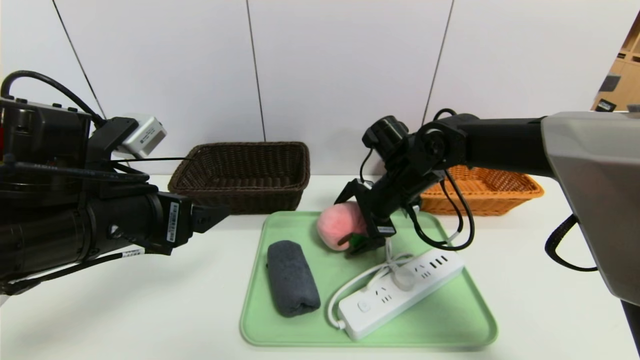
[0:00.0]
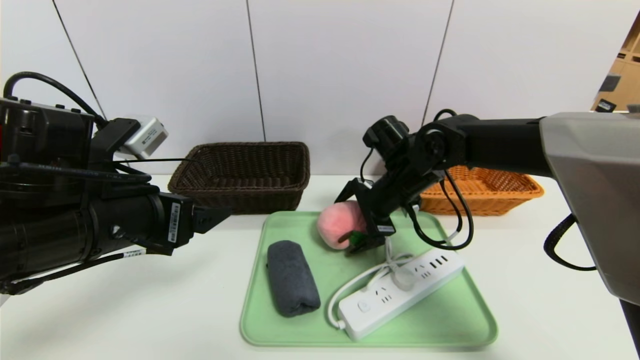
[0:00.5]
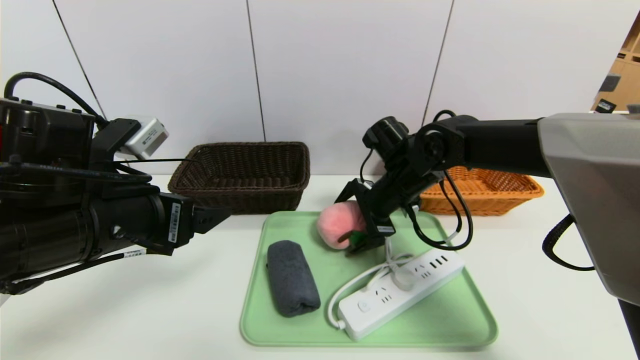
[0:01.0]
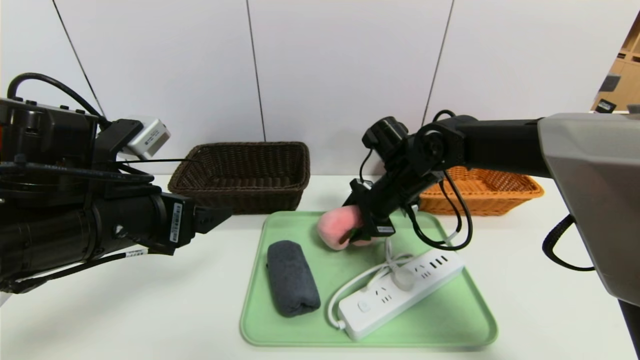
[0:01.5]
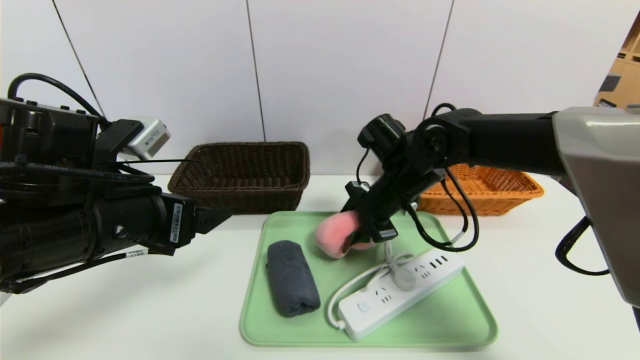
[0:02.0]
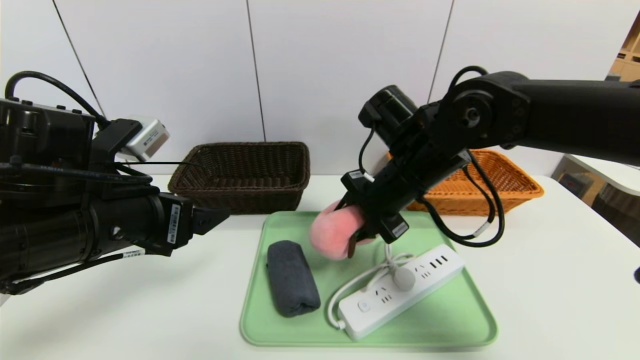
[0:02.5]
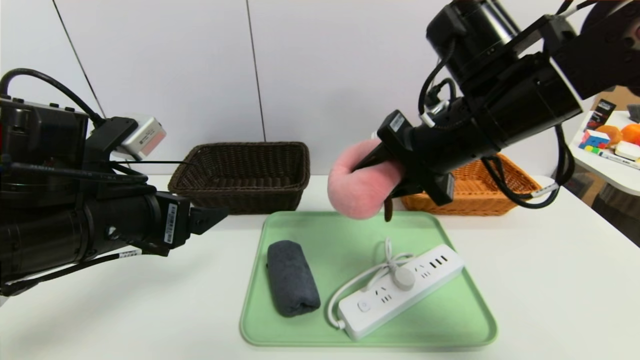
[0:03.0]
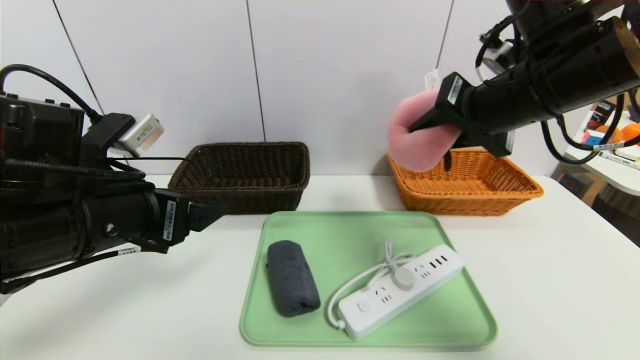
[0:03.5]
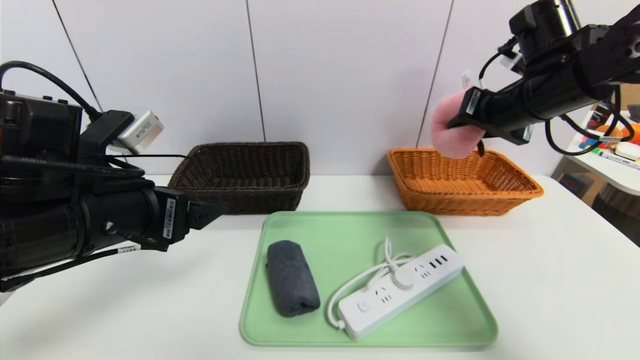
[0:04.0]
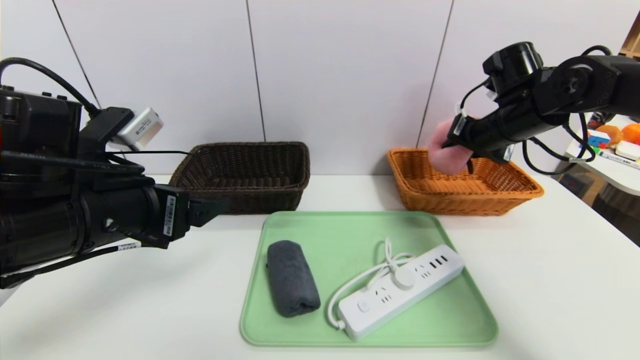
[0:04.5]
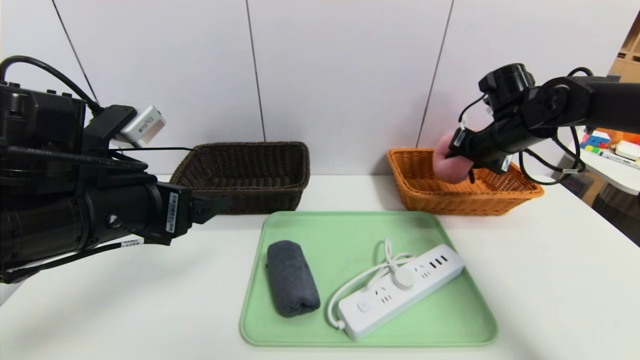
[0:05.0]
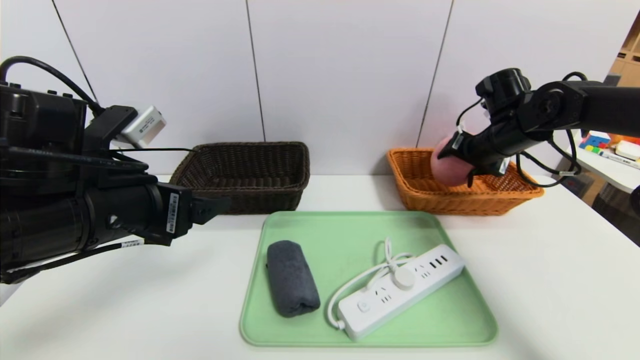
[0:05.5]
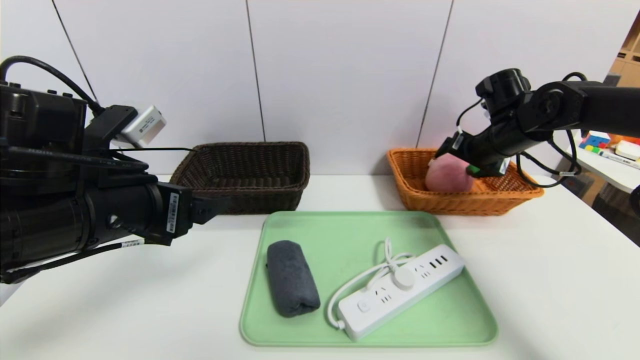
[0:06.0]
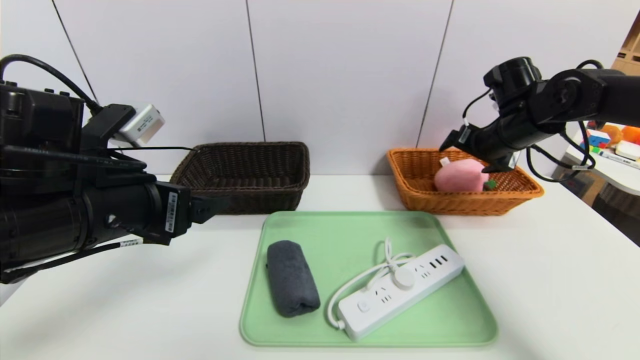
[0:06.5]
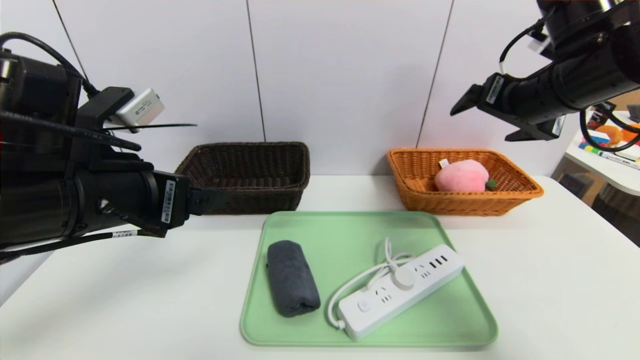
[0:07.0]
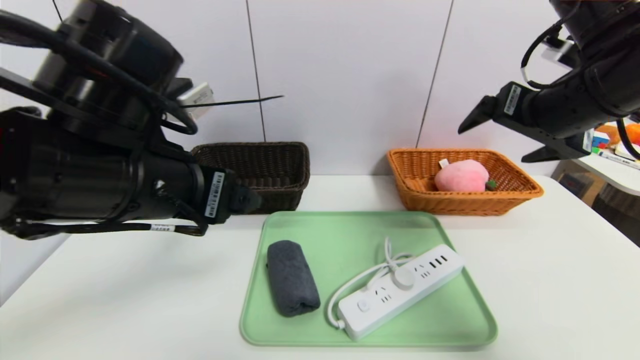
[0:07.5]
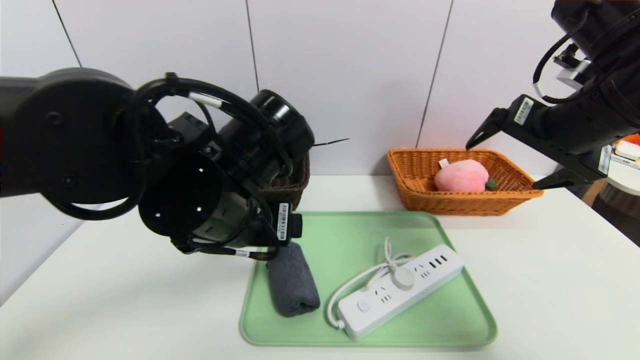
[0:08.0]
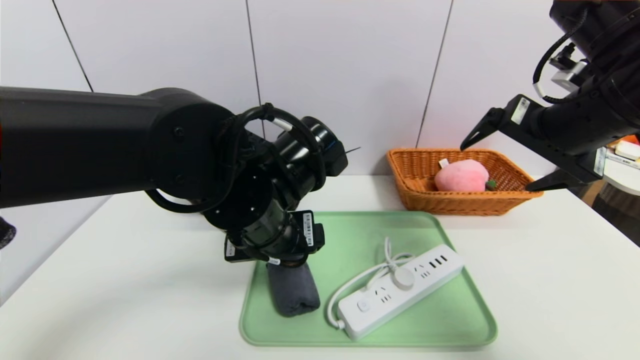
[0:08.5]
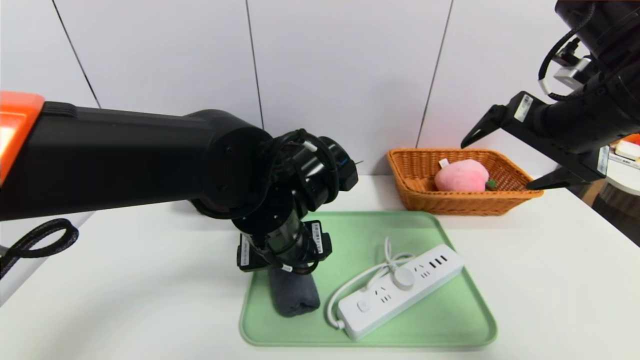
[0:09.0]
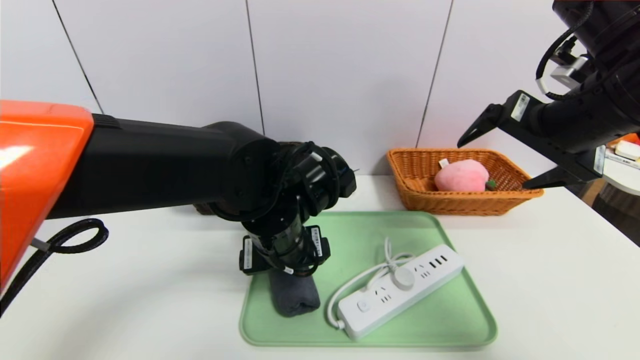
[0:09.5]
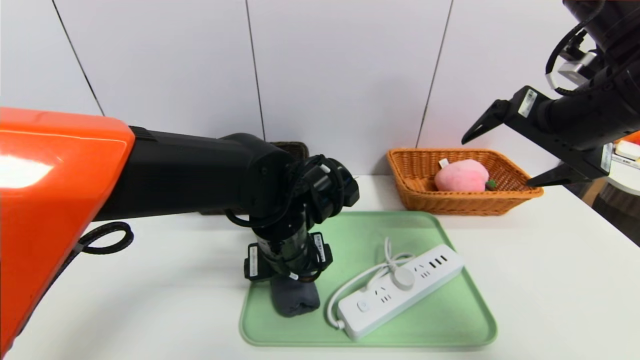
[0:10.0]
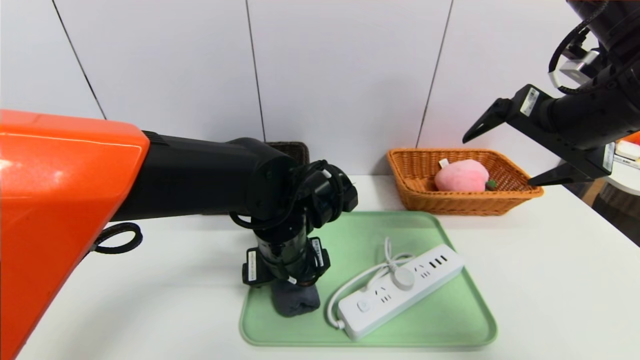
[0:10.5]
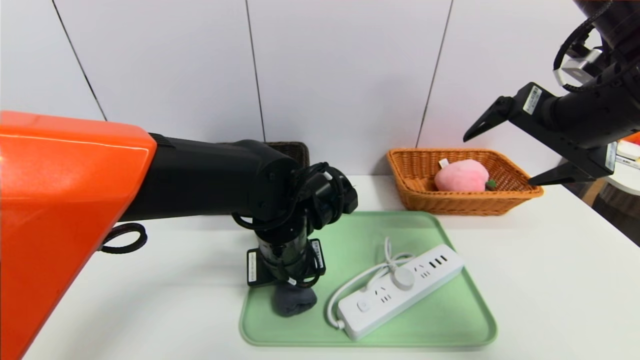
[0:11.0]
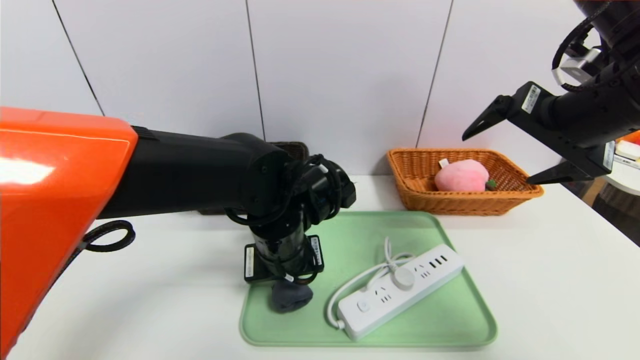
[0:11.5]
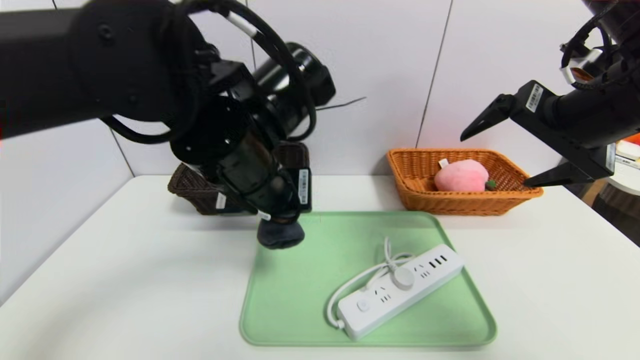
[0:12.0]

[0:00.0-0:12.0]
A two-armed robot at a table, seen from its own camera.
Task of the whole recording: place the food in the right basket with the right gripper, and place the non food items in the left basket with the left gripper.
Step, 0:00.0 to 0:06.5: Grasp the peach doll and put it in the right basket.
0:00.0 to 0:02.0: The right gripper closes up.
0:02.0 to 0:04.0: The right gripper is displaced to the right and upward by about 20 cm.
0:04.0 to 0:06.0: The right gripper travels downward and forward by approximately 10 cm, and opens.
0:06.0 to 0:08.0: The right gripper goes roughly 20 cm backward and upward. The left gripper shifts about 10 cm to the right.
0:08.0 to 0:10.0: The left gripper heads downward, covering approximately 10 cm.
0:10.0 to 0:12.0: The left gripper heads upward, covering about 10 cm, and closes.

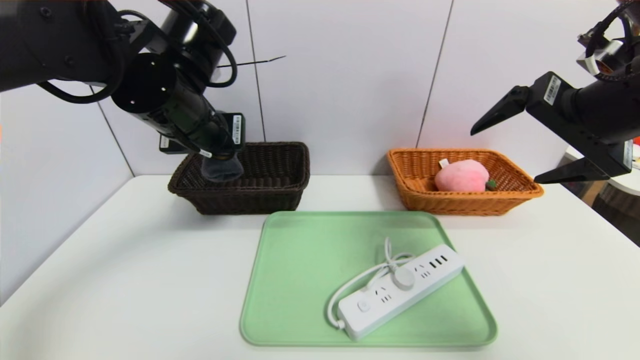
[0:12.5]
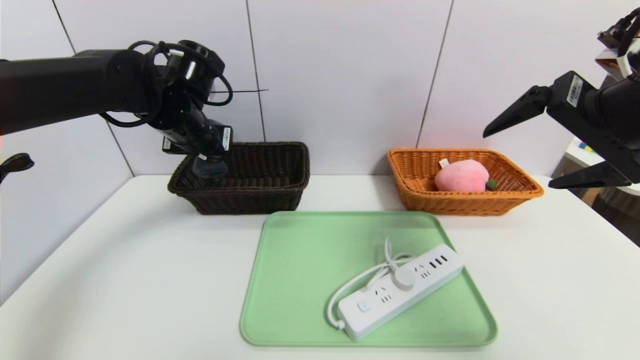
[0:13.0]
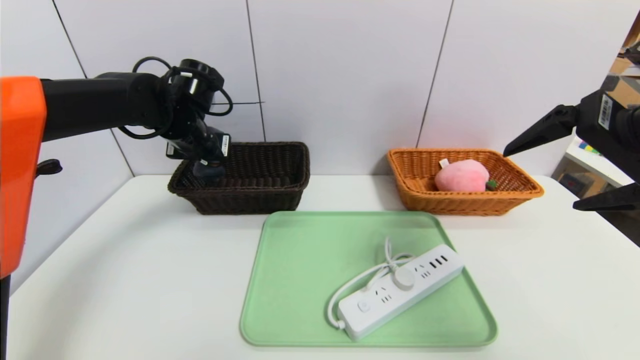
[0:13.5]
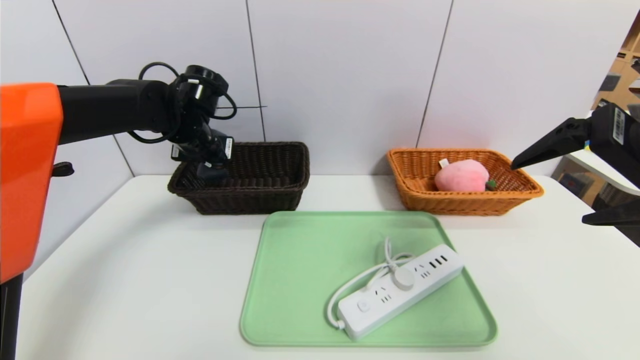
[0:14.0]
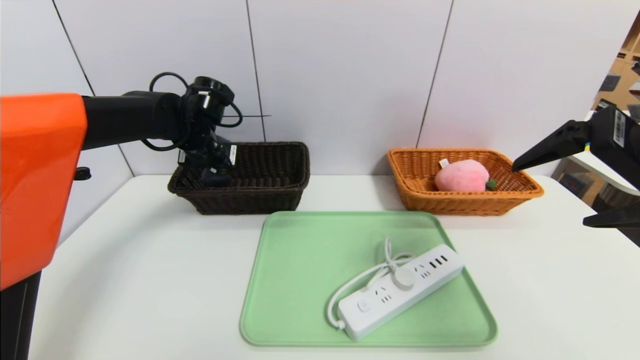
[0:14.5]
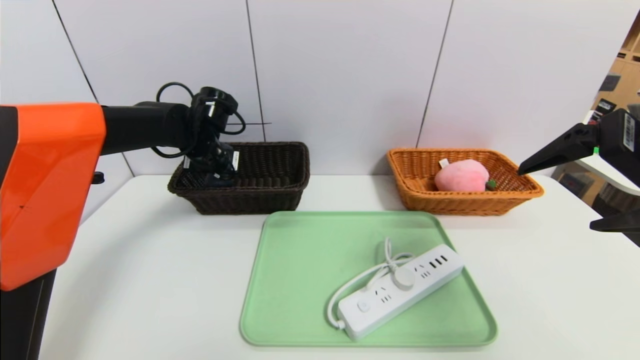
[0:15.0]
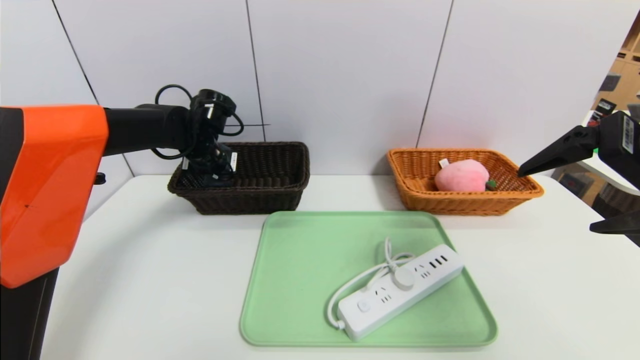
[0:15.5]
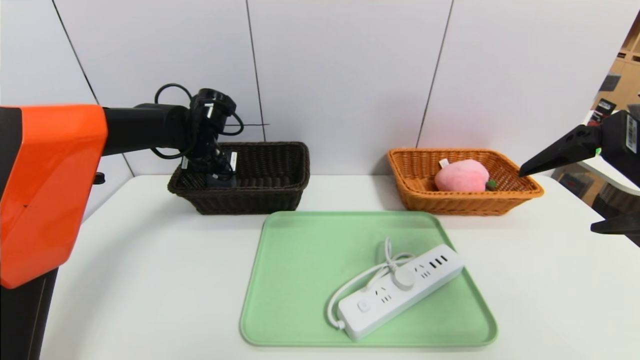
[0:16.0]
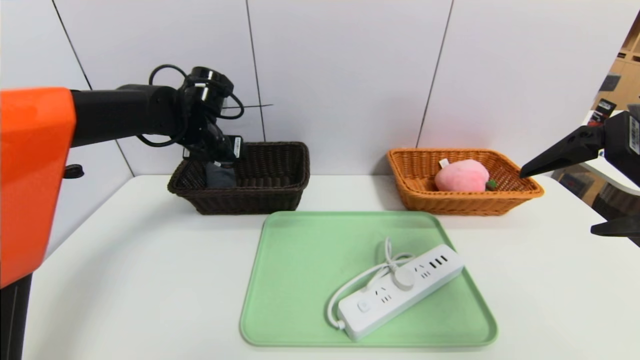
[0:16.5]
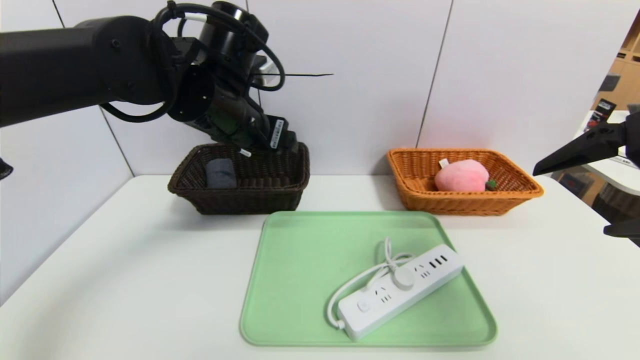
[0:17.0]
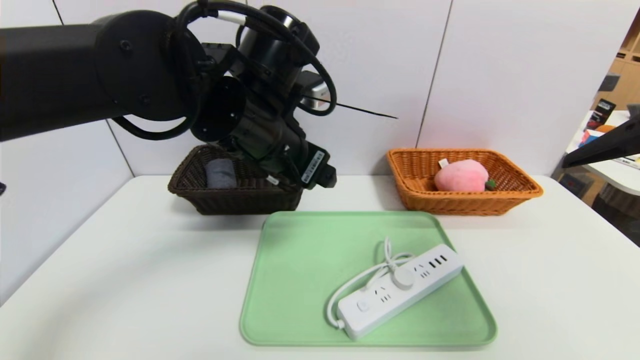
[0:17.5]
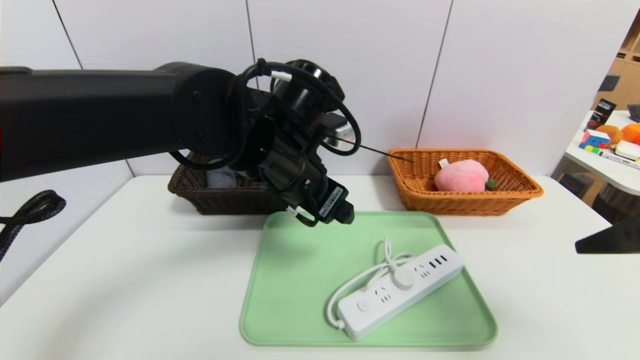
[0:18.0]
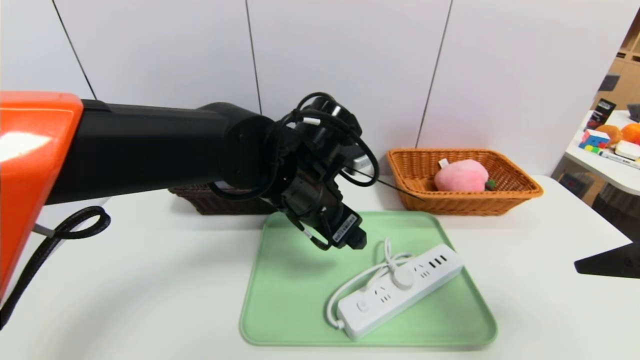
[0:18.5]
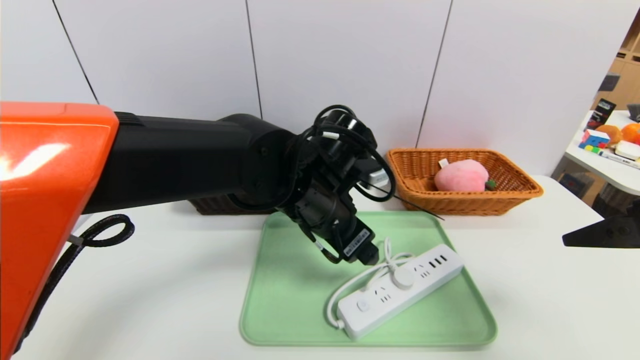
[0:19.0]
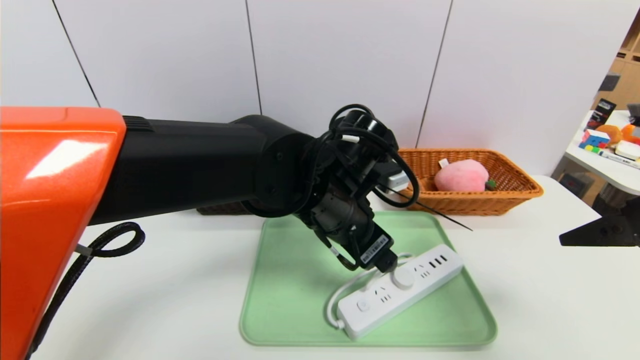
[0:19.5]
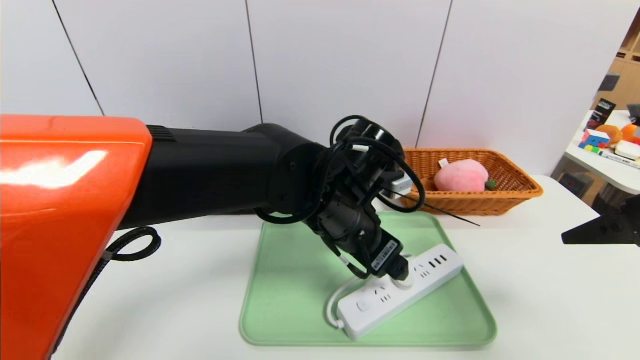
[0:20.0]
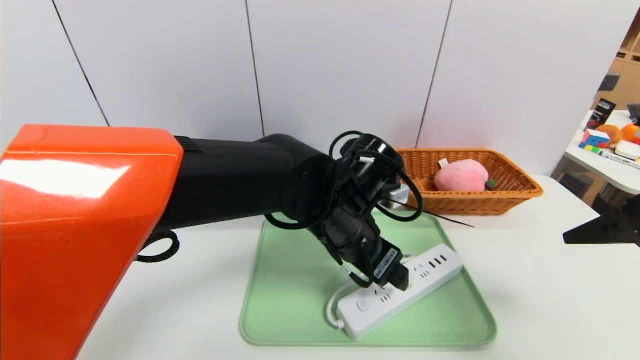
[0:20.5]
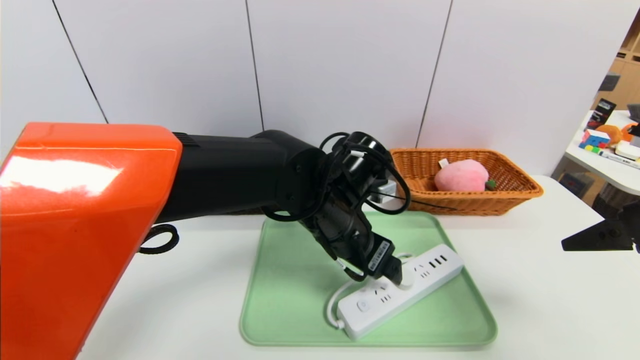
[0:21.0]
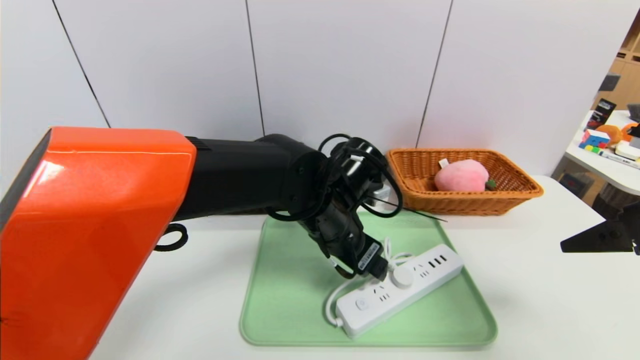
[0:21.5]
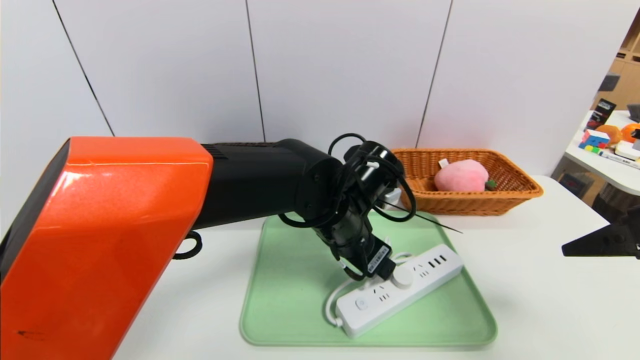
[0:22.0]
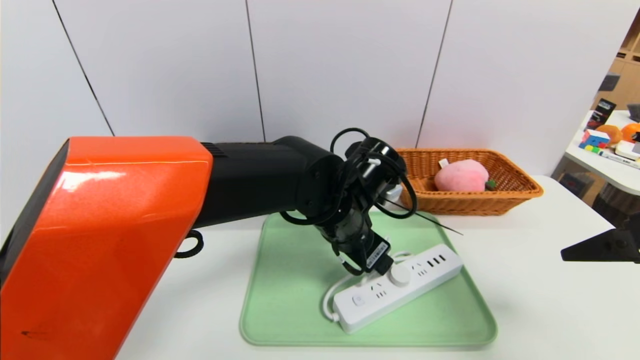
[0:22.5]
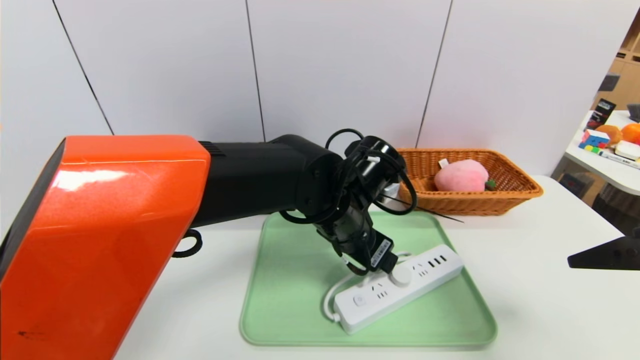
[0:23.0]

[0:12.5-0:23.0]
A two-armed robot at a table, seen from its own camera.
Task of the whole recording: place the food in the right basket with the right gripper, and place the non food items in the left basket with the left gripper.
Step, 0:12.5 to 0:15.5: Grasp the grey towel and put it in the left basket.
0:12.5 to 0:14.5: The right gripper changes place by some 5 cm. The left gripper travels forward and downward by roughly 15 cm.
0:14.5 to 0:16.5: The left gripper opens its fingers.
0:16.5 to 0:19.0: The left gripper heads to the right and backward, covering roughly 25 cm; the right gripper ends up approximately 5 cm from where it was.
0:19.0 to 0:23.0: The grippers move only a little.
